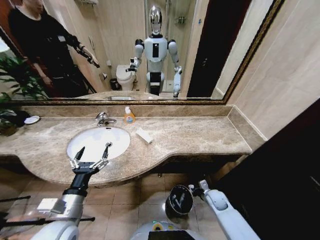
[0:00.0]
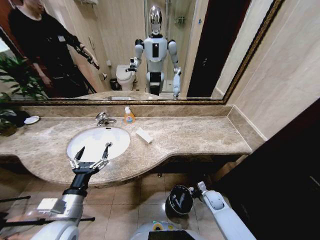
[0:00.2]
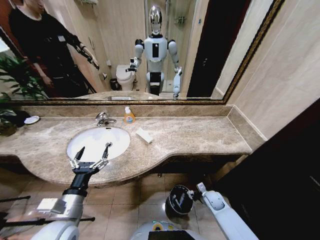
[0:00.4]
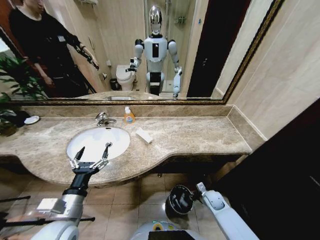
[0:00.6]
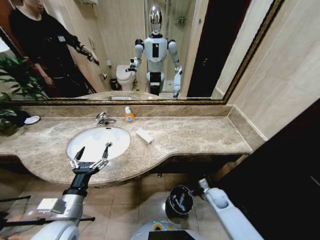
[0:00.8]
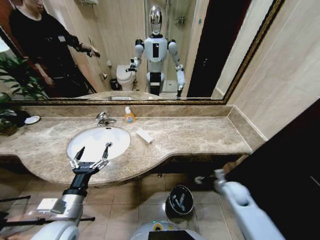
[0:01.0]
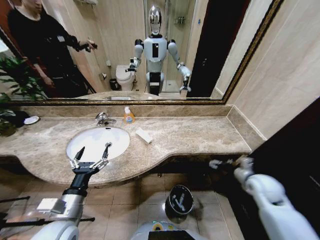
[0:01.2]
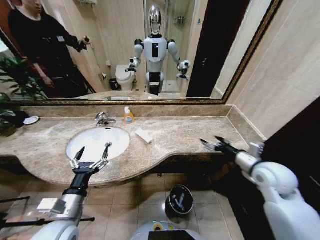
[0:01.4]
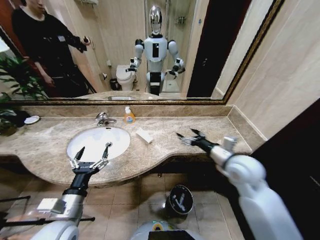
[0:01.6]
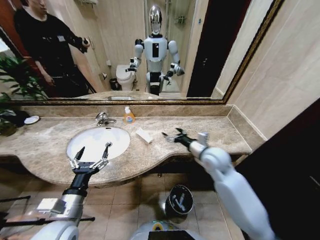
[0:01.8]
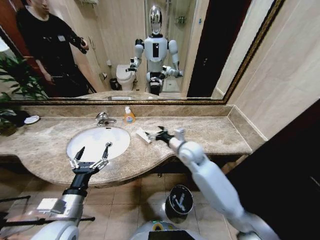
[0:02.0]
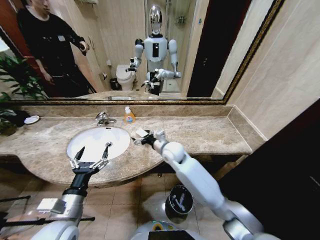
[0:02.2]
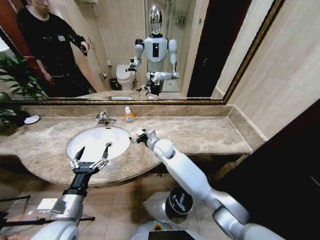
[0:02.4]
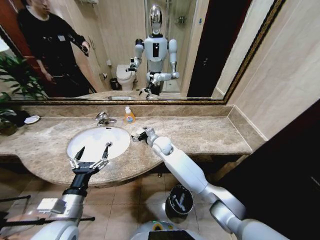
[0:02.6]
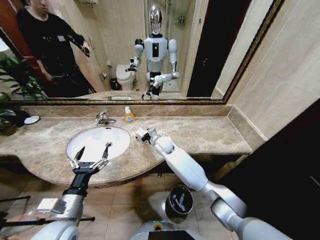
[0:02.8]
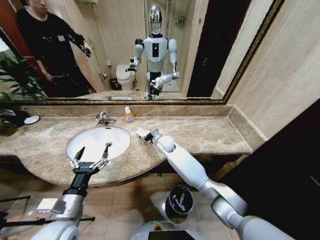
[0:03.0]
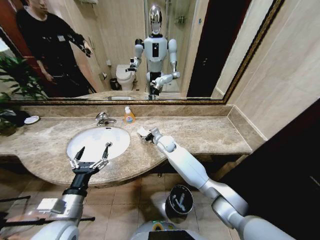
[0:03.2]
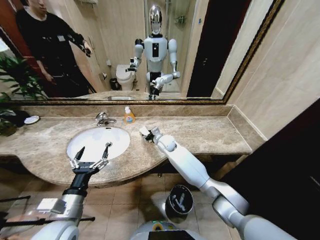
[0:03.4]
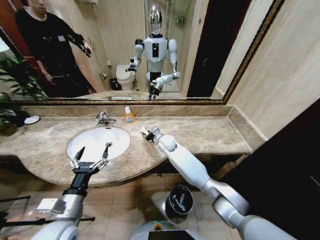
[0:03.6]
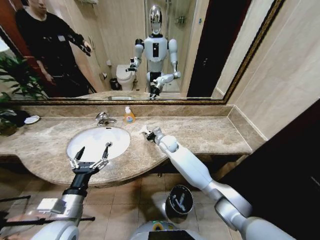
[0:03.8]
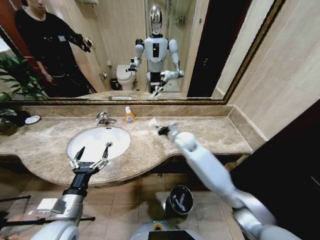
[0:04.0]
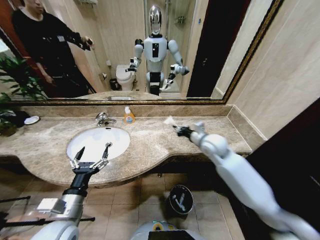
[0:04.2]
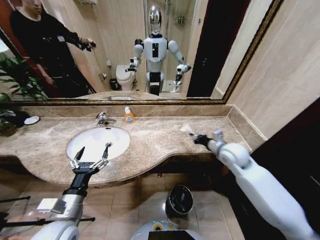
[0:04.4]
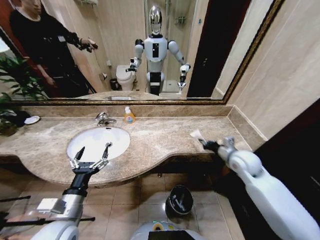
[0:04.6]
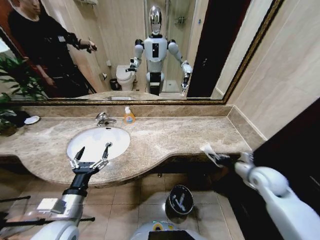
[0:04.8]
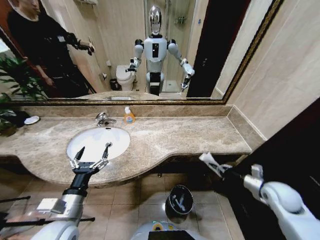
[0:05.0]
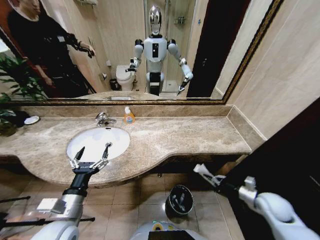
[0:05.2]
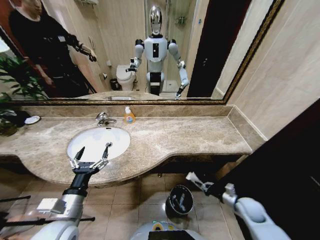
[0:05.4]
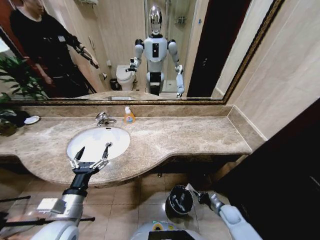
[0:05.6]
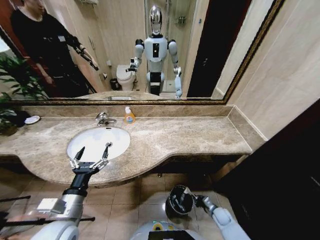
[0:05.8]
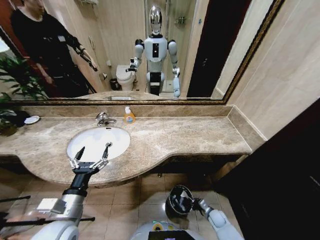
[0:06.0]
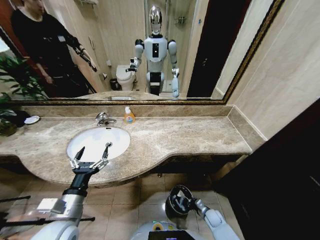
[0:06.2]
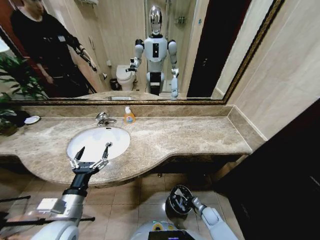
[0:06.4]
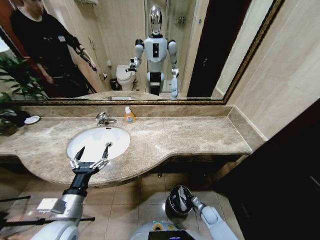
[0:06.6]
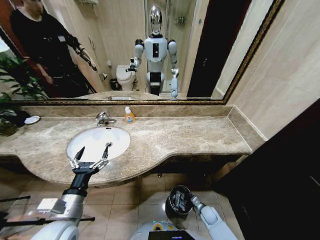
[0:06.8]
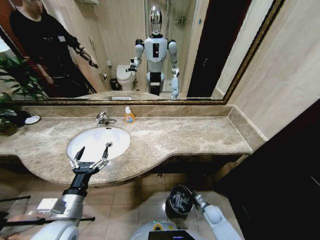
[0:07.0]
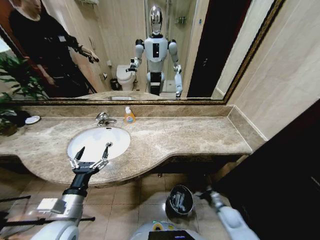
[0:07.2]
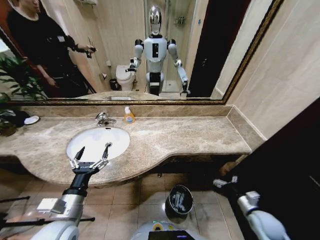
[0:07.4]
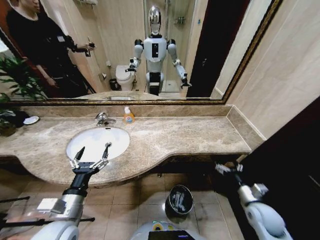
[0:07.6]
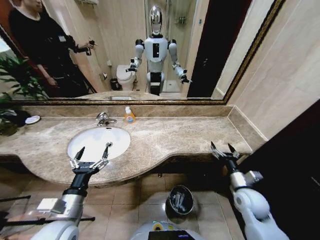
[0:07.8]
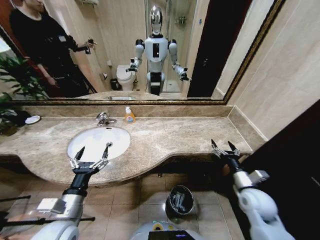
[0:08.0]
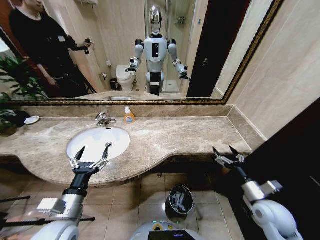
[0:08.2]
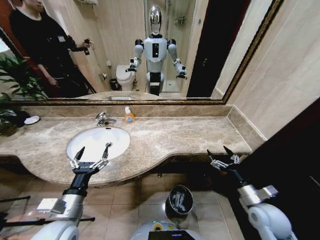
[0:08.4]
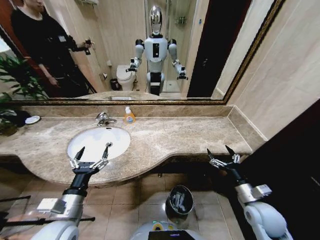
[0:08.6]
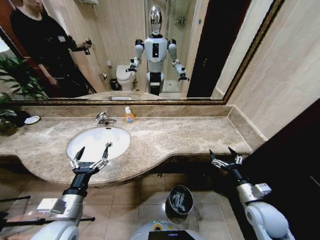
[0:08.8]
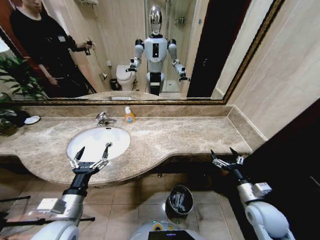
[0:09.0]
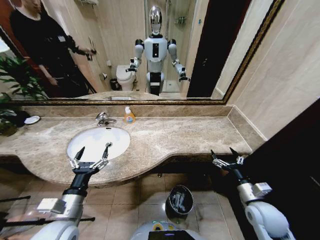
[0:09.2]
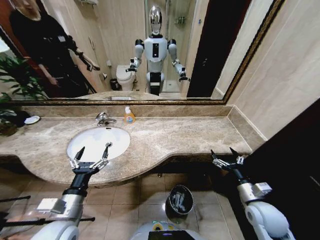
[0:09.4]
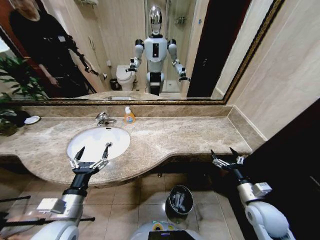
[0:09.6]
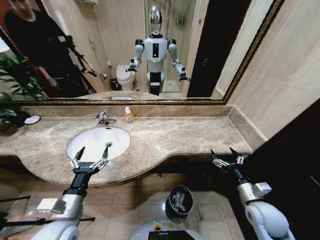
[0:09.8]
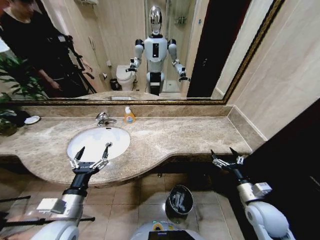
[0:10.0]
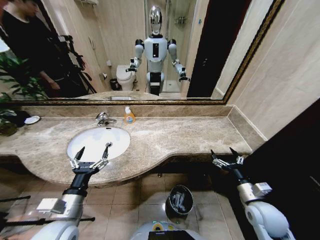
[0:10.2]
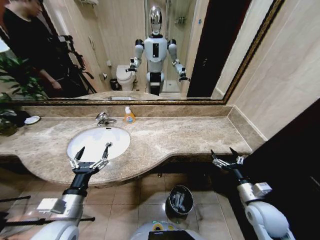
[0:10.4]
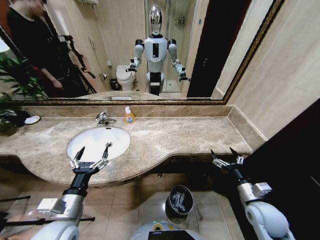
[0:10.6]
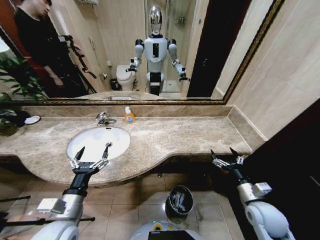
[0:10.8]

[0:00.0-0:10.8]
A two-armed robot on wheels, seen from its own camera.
Task of the whole recording: Pick up the trash from the sink and place it in the trash bin.
0:00.0 to 0:01.6: The right gripper travels upward by some 30 cm, and opens its fingers.
0:01.6 to 0:03.0: The right gripper travels to the left, forward and downward by roughly 35 cm.
0:03.0 to 0:04.6: The right gripper heads to the right and backward, covering approximately 35 cm, and closes.
0:04.6 to 0:06.2: The right gripper heads downward, covering about 40 cm.
0:06.2 to 0:07.8: The right gripper is displaced upward by roughly 30 cm, and opens up.
0:07.8 to 0:09.2: The right gripper moves backward, about 5 cm.
0:09.2 to 0:10.8: Both grippers stay put.
